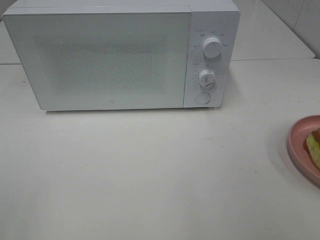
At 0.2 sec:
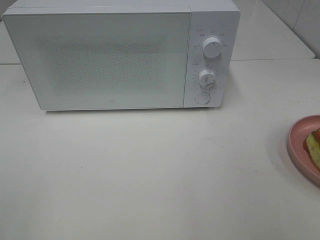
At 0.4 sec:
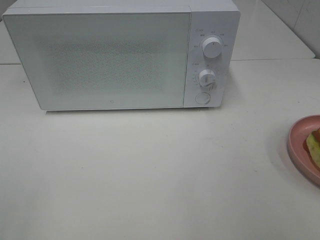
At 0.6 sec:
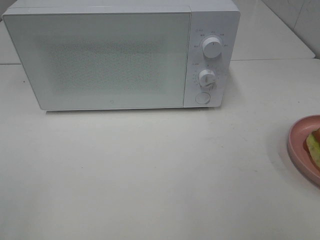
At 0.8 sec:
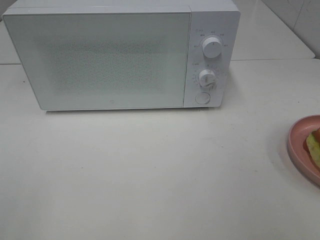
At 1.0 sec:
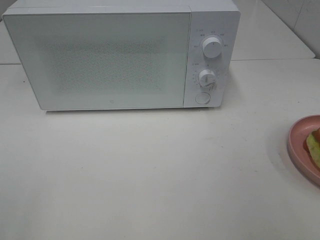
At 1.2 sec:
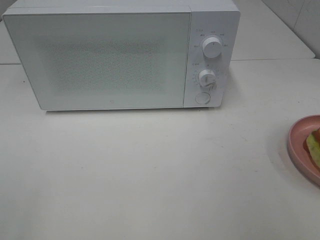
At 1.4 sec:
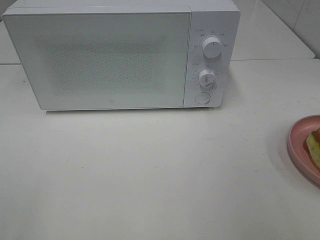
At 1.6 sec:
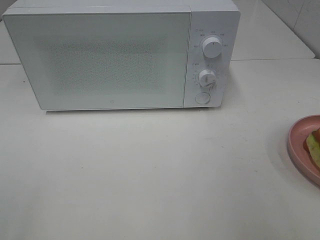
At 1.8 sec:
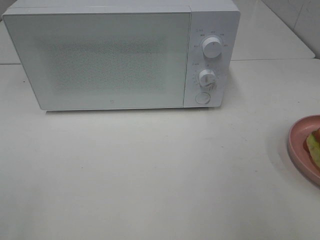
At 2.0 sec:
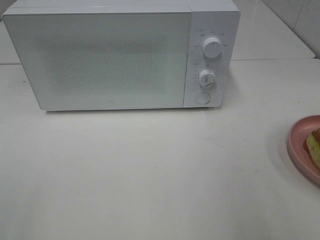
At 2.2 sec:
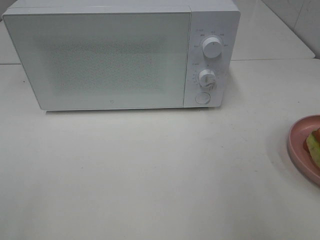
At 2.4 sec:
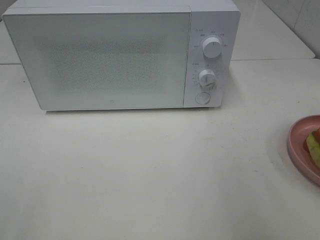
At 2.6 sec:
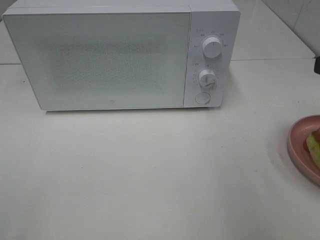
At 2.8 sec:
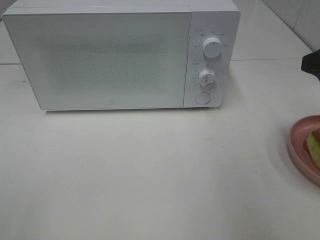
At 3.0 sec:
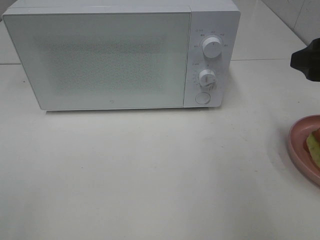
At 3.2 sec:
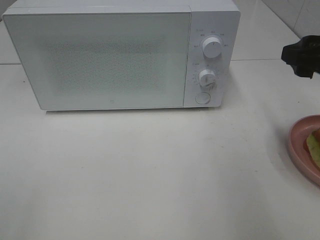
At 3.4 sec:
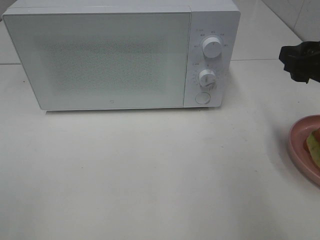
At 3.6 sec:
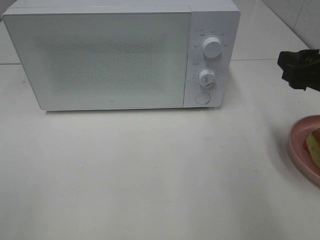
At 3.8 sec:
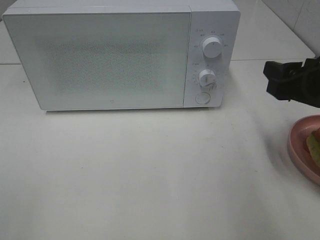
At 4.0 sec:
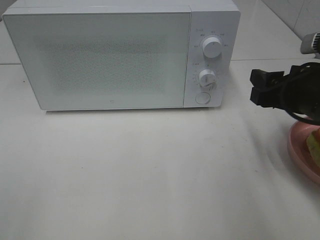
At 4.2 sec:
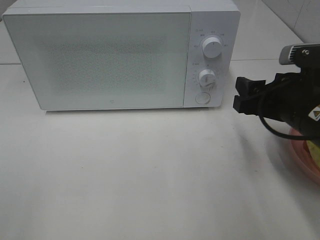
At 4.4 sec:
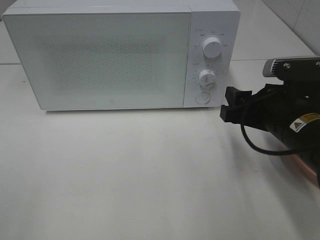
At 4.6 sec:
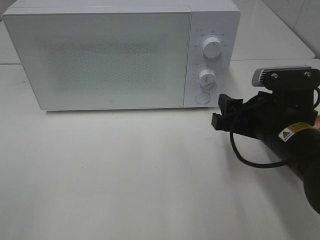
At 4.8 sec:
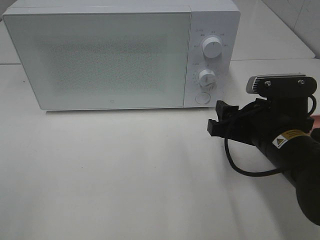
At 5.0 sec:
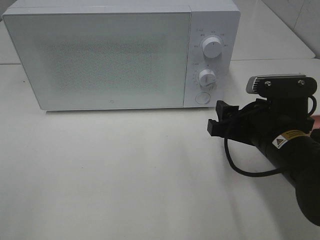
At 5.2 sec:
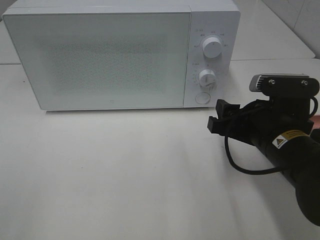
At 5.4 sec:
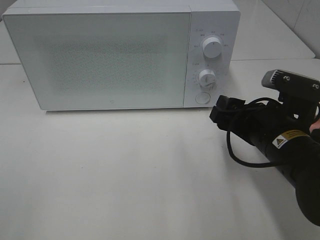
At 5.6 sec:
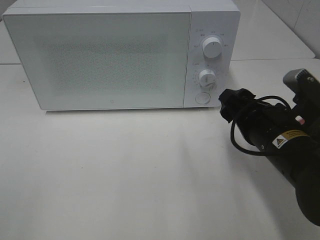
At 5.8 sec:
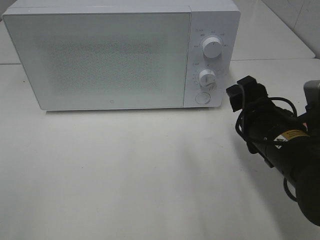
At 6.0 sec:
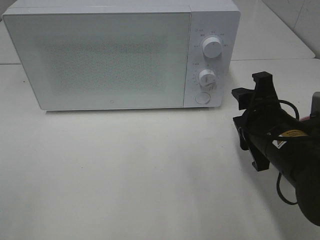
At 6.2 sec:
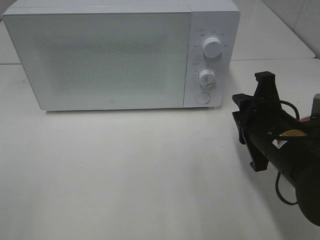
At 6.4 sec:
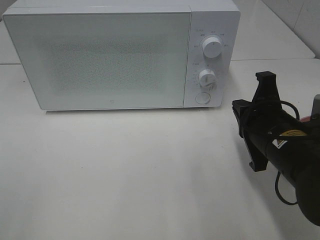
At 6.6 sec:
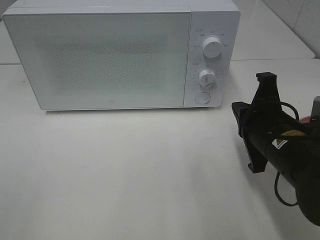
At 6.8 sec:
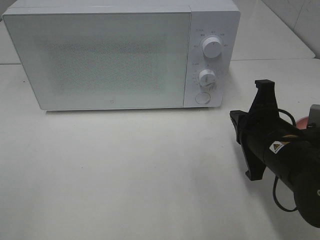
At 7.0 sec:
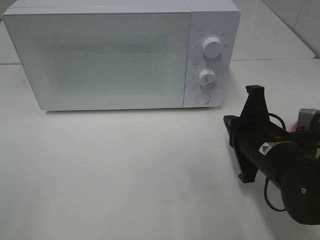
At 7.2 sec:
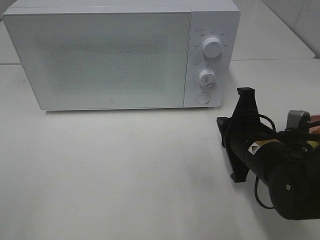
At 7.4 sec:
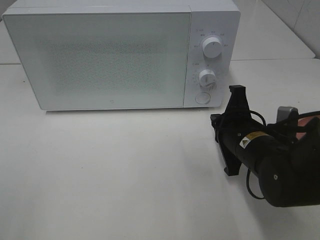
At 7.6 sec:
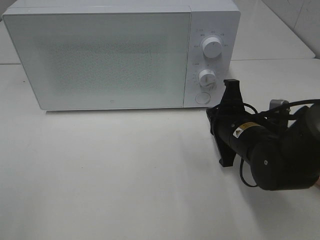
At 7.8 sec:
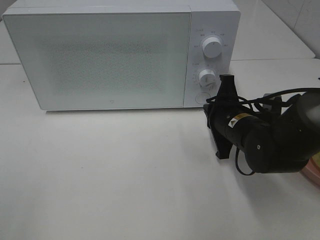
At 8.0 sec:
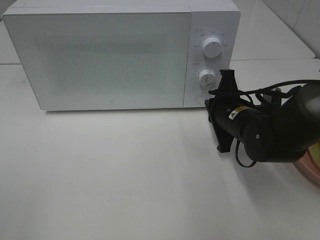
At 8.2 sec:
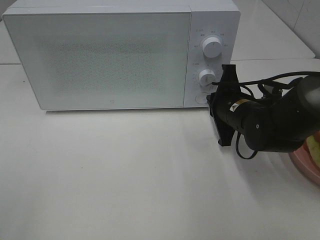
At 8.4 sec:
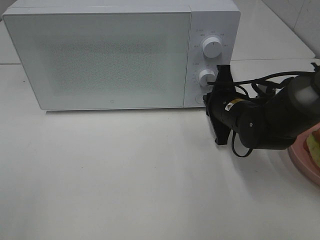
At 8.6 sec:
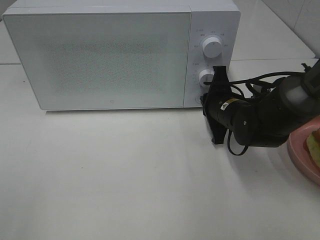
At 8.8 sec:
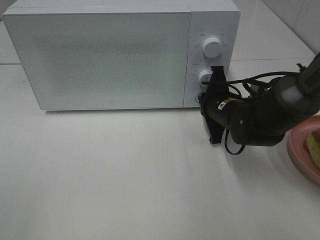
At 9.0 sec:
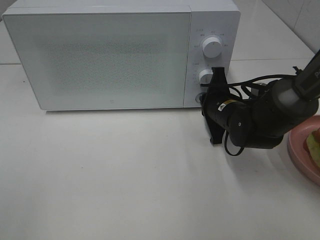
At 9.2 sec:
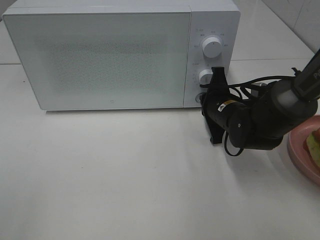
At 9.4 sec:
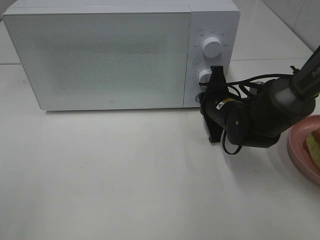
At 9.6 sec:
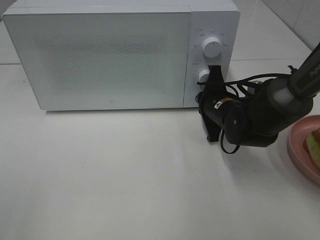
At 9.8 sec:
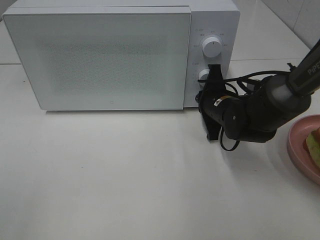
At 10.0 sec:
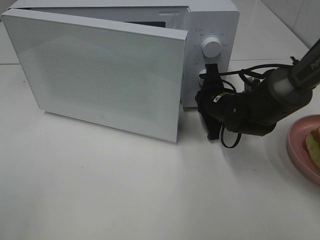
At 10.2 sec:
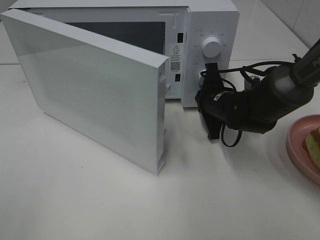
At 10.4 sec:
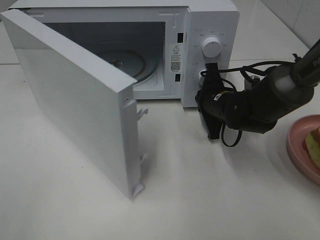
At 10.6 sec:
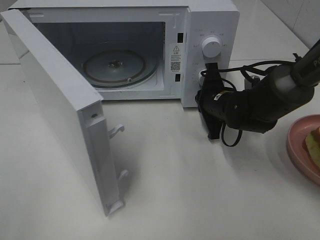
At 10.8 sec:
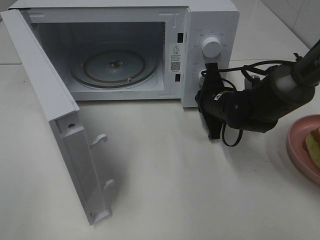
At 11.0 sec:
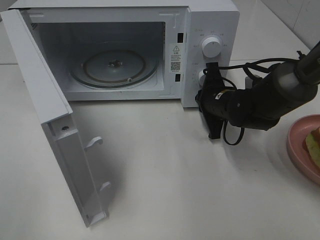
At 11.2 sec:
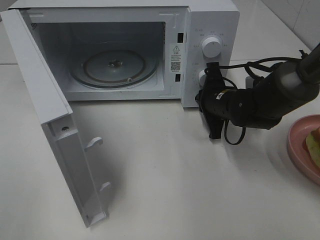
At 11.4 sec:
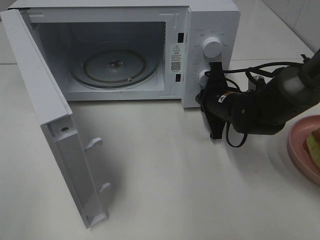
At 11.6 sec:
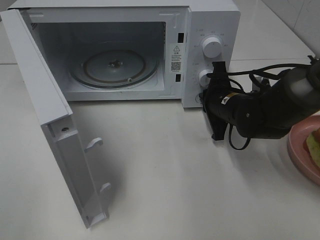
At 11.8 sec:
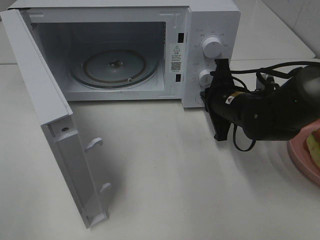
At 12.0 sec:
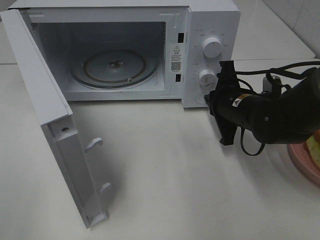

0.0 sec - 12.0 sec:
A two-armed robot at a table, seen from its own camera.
Task of the whole recording: Heat Sandwich.
1.6 sec - 3.0 sec: The right gripper moves forward, approximately 15 cm.
3.0 sec - 4.4 sec: The right gripper shifts some 15 cm downward and to the left.
6.0 sec - 7.6 sec: The right gripper is displaced forward by approximately 5 cm, and closes up.
7.6 sec - 9.0 sec: The right gripper goes approximately 5 cm forward.
10.4 sec - 12.0 sec: The right gripper is displaced backward by approximately 5 cm.

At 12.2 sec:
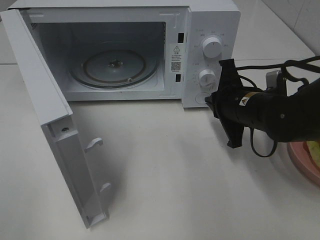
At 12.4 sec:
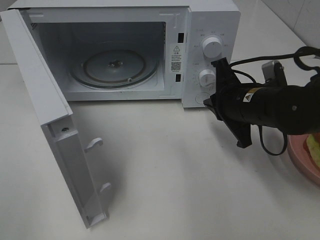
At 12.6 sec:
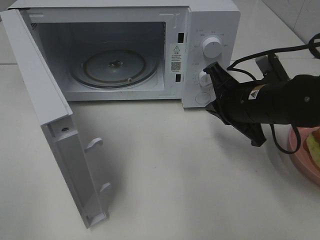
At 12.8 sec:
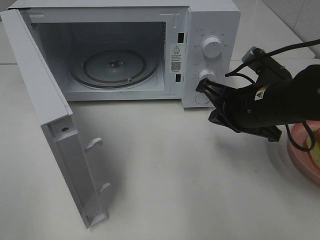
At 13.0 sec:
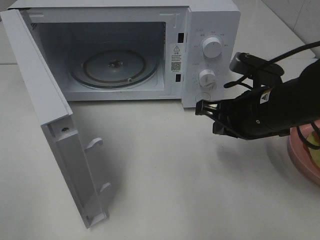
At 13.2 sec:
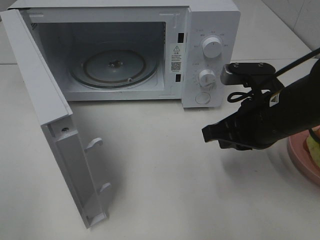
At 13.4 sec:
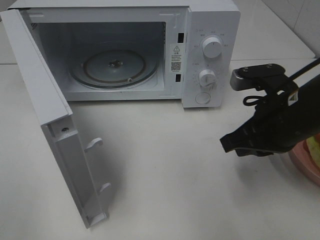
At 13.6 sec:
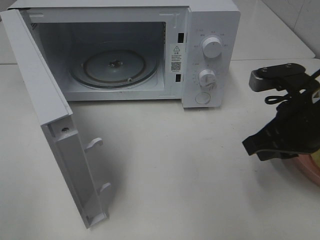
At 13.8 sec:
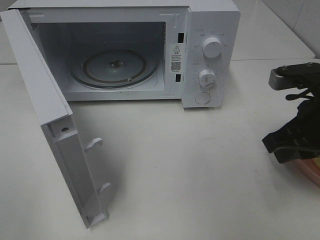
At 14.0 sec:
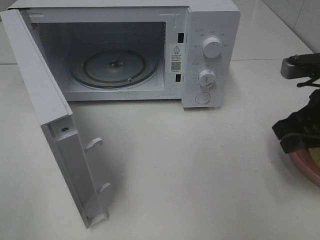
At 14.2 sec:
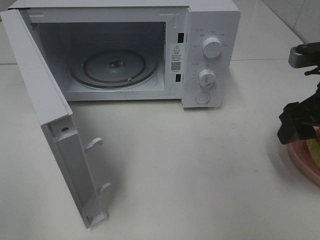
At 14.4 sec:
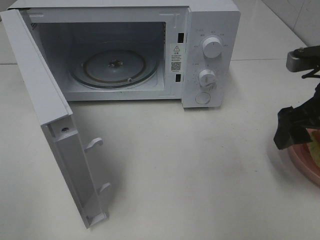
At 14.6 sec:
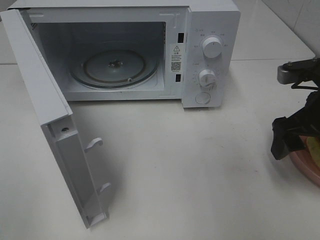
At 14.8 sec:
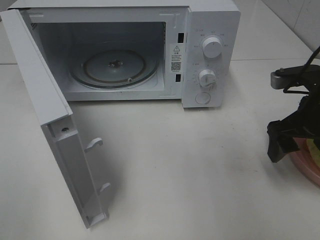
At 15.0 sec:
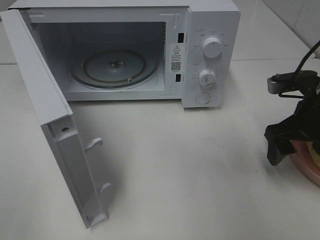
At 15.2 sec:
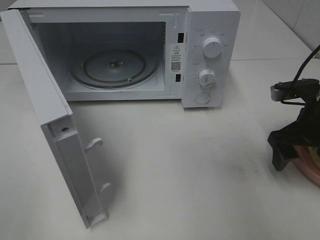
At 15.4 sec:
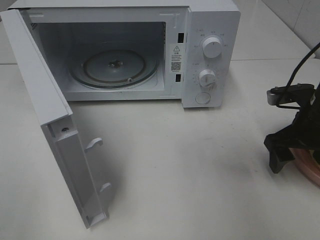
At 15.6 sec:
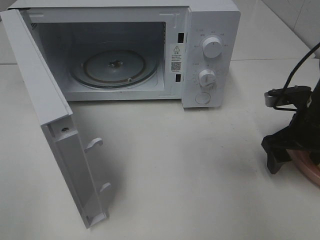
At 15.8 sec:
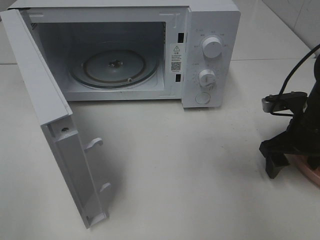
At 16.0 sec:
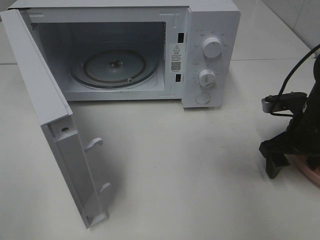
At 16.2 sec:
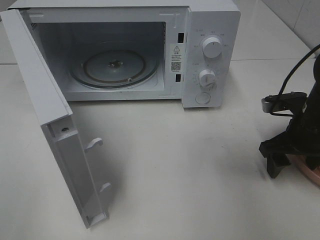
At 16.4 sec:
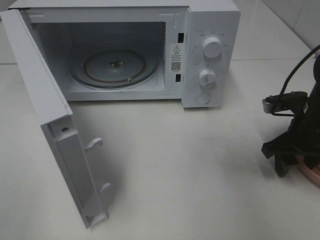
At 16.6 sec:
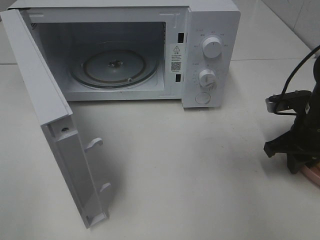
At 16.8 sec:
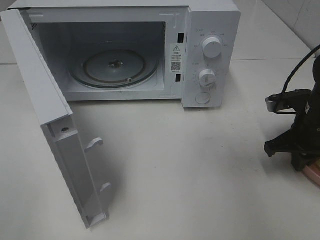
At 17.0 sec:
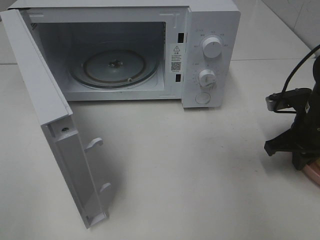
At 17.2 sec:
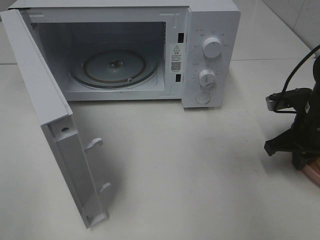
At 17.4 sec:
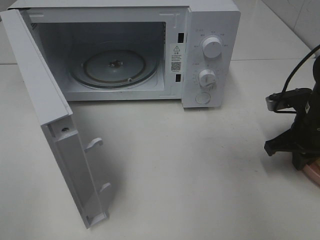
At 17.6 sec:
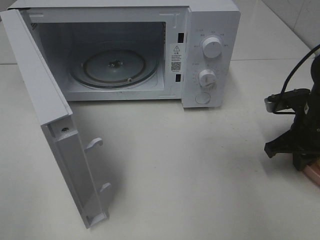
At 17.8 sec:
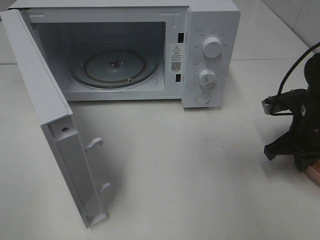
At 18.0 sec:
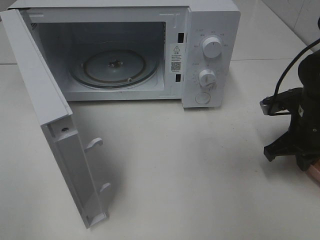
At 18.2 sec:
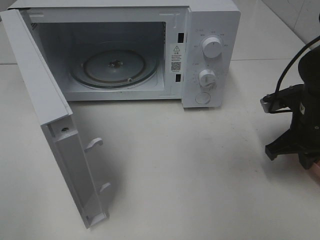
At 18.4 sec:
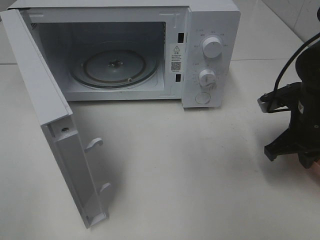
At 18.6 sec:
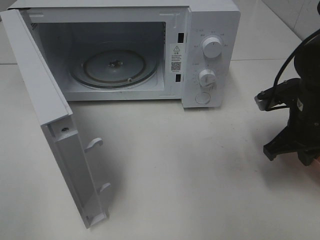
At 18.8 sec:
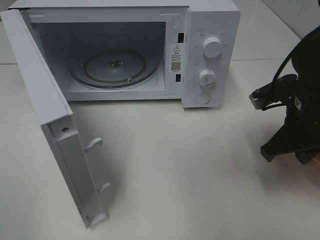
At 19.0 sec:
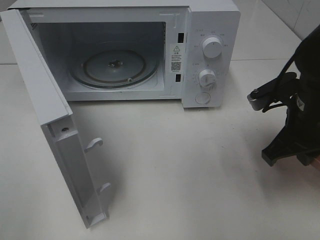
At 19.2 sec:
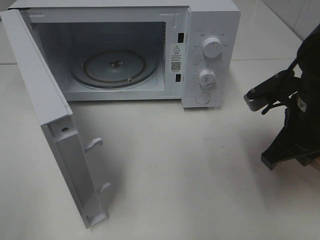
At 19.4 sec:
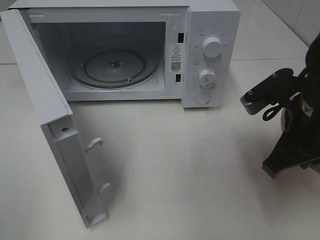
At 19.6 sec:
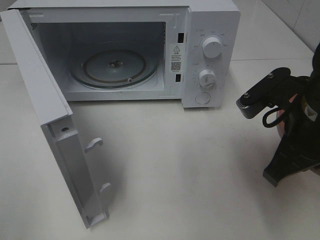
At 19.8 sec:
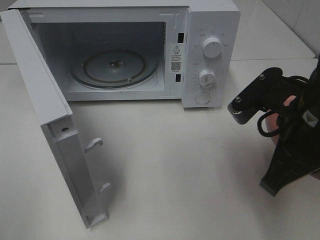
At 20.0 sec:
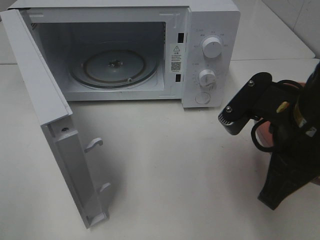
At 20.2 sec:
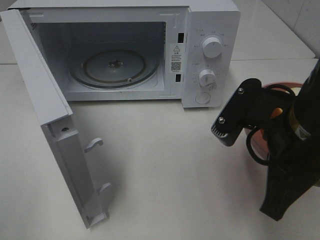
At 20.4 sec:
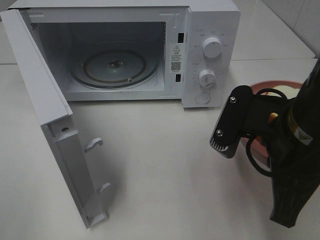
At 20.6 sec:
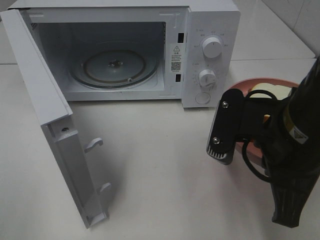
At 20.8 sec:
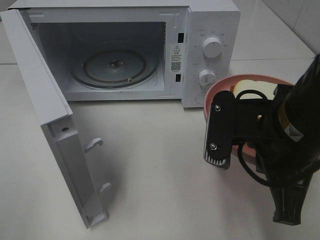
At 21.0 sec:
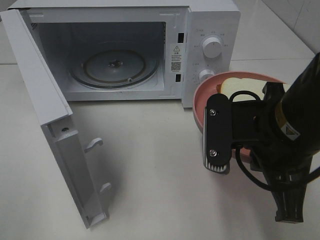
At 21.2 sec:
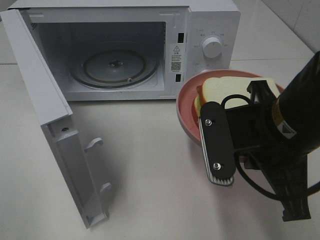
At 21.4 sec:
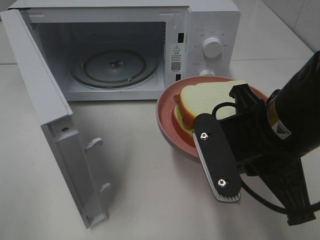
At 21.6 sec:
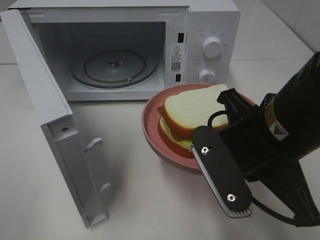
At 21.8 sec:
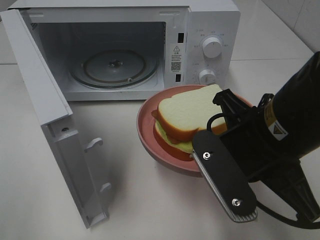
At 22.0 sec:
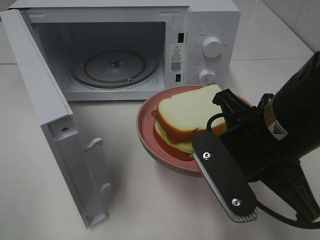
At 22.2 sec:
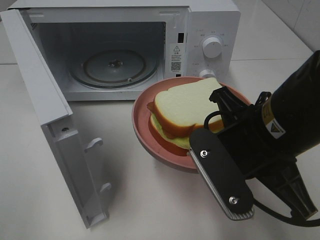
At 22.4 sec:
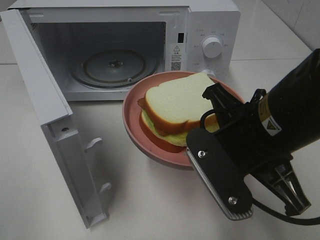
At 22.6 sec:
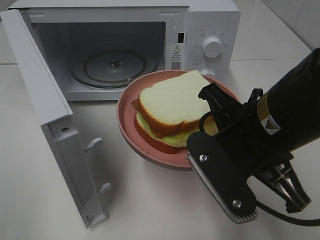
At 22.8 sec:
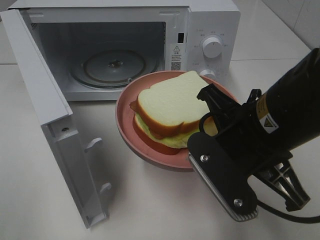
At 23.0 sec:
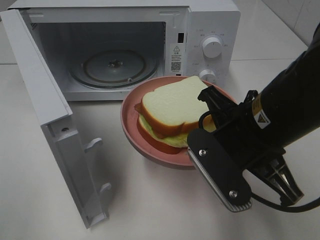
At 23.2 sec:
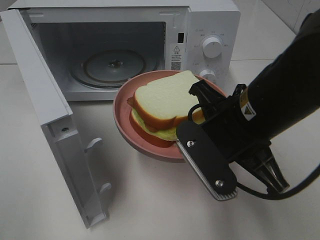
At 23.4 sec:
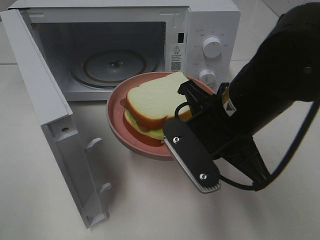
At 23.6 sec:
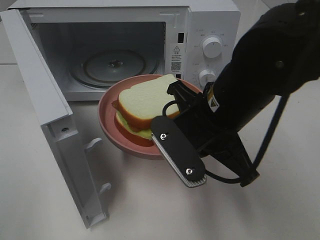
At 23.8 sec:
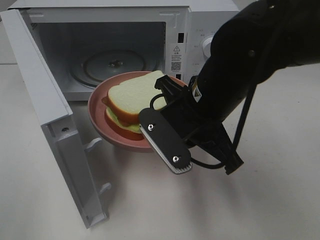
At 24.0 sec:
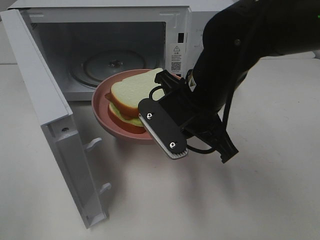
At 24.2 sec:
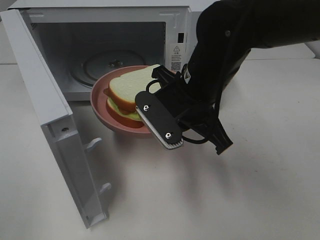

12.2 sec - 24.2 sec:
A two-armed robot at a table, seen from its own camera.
Task of the whole recording: Heat Sandwich.
Step, 12.2 sec - 17.2 sec: Right hand: grab the plate with the sandwich.
12.2 sec - 13.8 sec: The right gripper goes approximately 15 cm backward, to the right and upward.
13.8 sec - 15.2 sec: The right gripper moves forward and downward, about 10 cm, and opens its fingers.
15.2 sec - 16.6 sec: The right gripper closes.
16.6 sec - 18.2 sec: The grippers stay close to where they were, moving slightly.
18.2 sec - 19.8 sec: The right gripper shifts approximately 15 cm backward, to the left and upward.
22.6 sec - 24.2 sec: The right gripper moves forward and to the left, some 10 cm.
